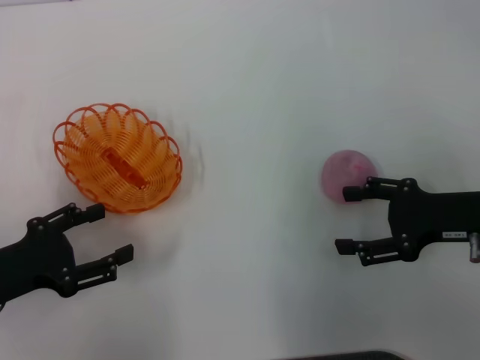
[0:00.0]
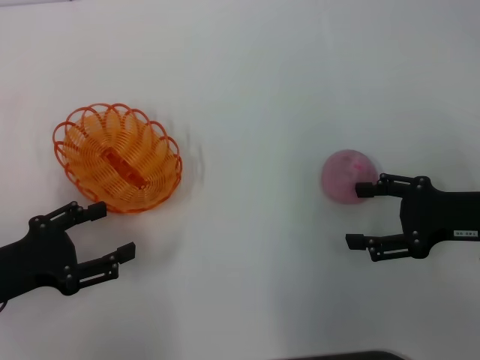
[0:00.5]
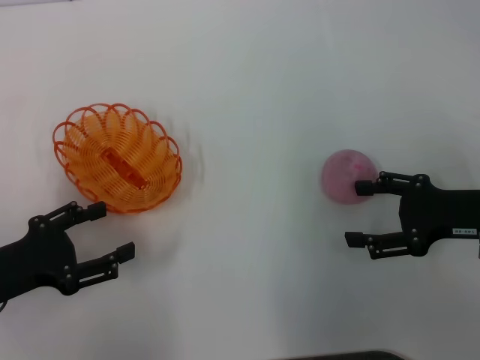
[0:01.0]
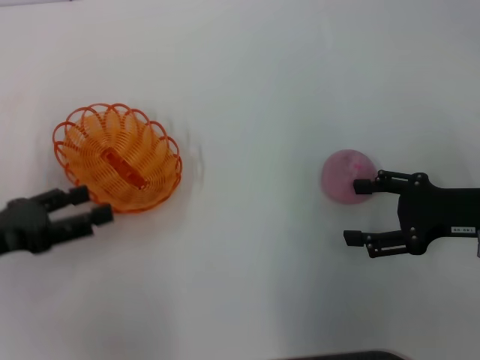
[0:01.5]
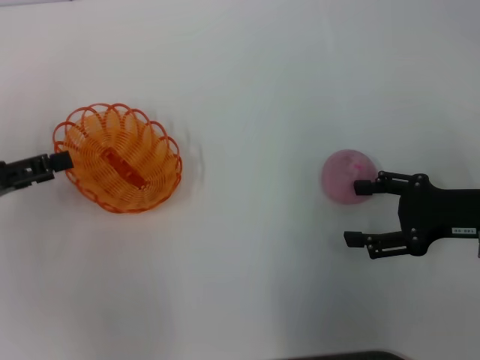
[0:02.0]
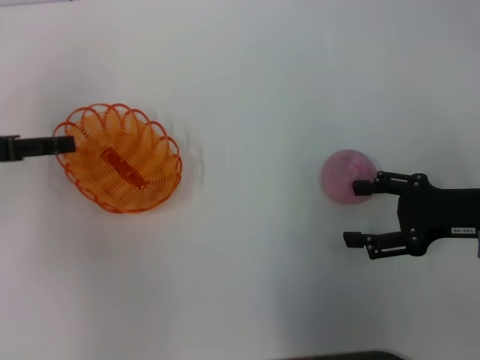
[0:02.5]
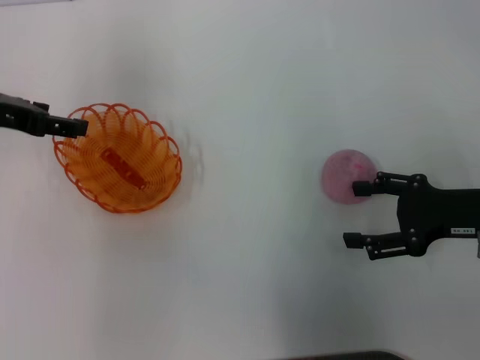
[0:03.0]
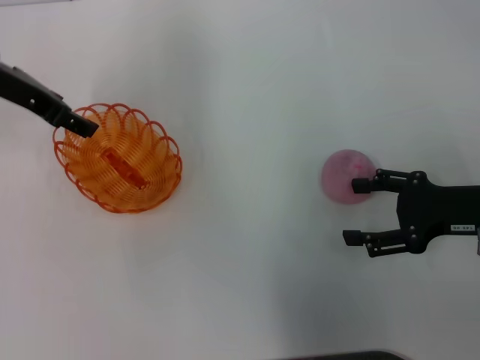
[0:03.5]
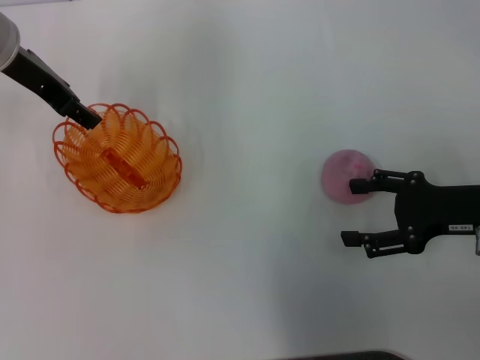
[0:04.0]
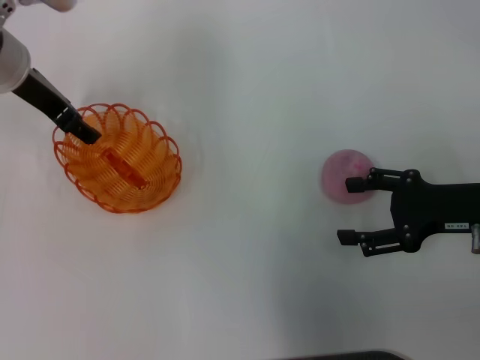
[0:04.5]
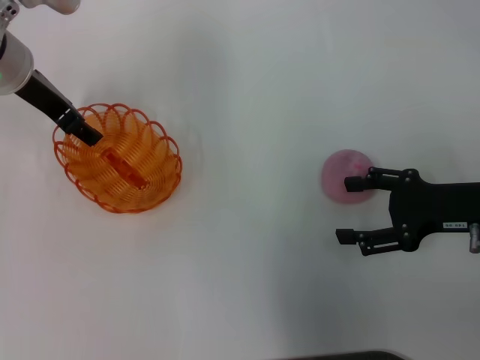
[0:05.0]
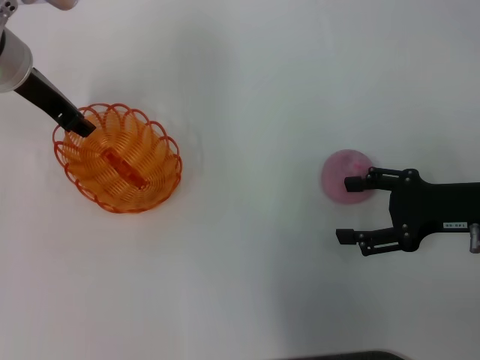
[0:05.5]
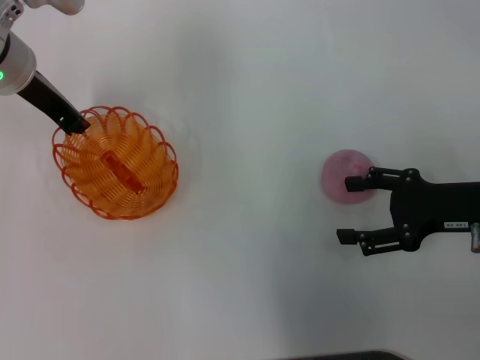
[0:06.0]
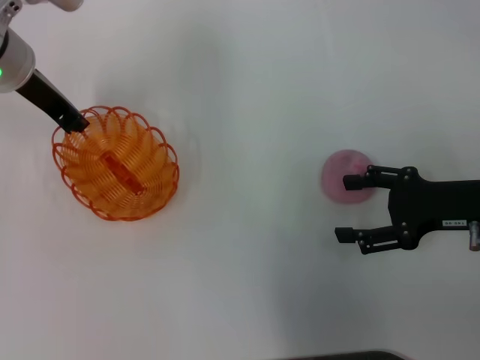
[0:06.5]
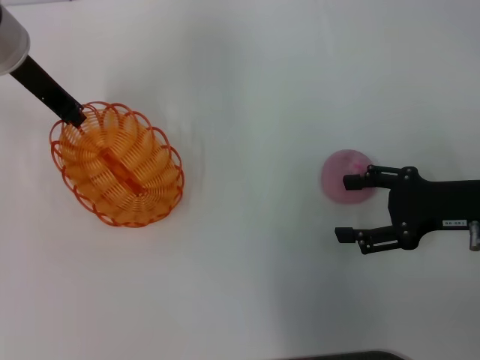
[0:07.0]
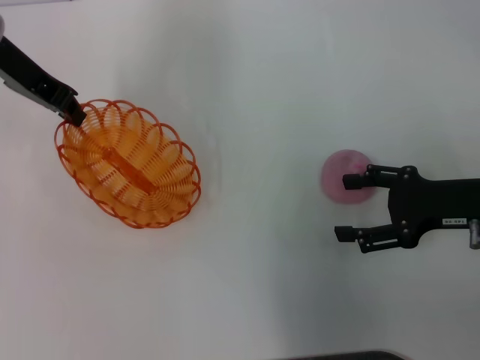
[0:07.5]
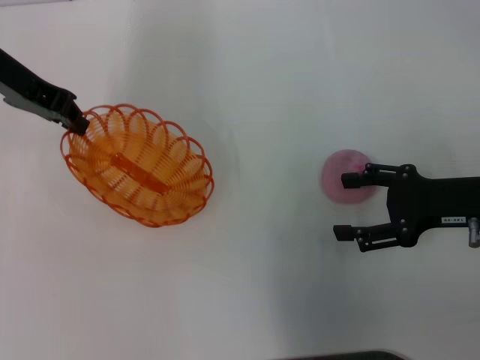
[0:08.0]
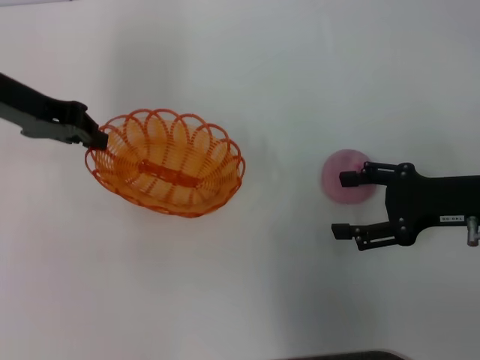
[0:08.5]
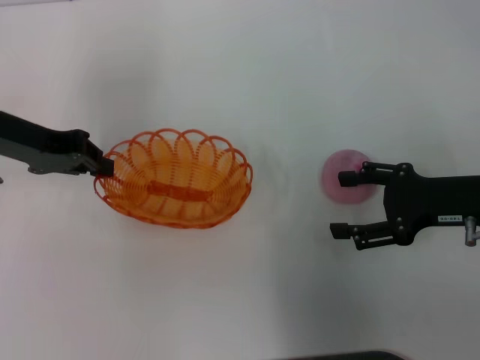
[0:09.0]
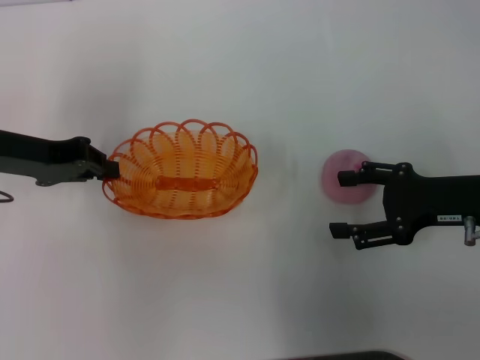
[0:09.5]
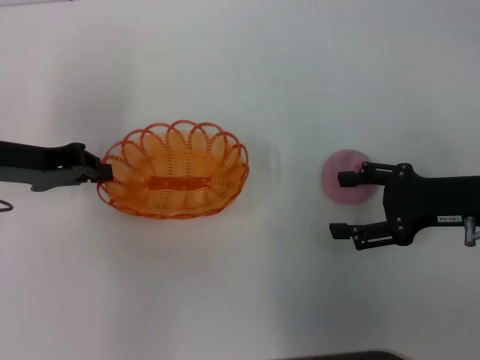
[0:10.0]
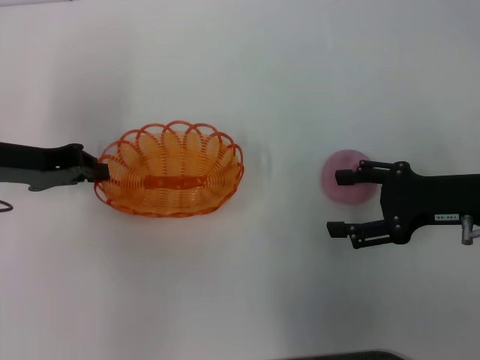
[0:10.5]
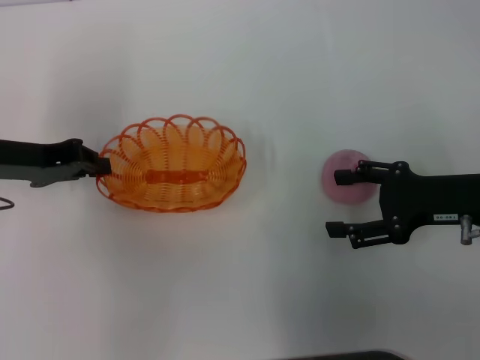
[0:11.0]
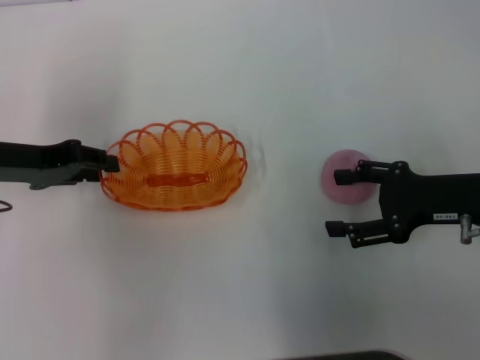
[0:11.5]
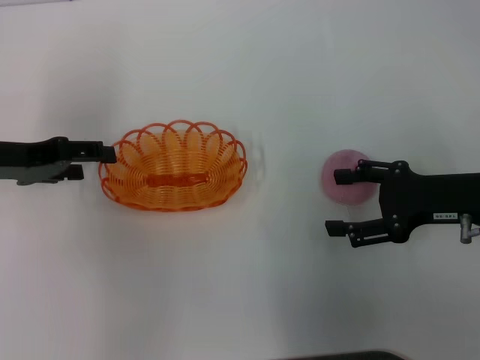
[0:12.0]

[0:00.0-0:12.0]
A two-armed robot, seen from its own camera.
Step, 0:00.0 to 0:07.0: Pick up the basket with the left gripper.
Step, 0:07.5 to 0:11.5: Place the basket in the center of view with the left gripper.
0:00.0 to 0:02.0: The left gripper goes some 10 cm forward and upward.
0:02.0 to 0:04.0: The left gripper moves forward, to the right and upward, roughly 20 cm.
0:04.0 to 0:06.0: The left gripper closes.
0:06.0 to 0:08.0: The left gripper ends up roughly 5 cm from where it was.
0:08.0 to 0:10.0: The left gripper travels backward and downward by about 10 cm.
0:10.0 to 0:12.0: The left gripper opens.

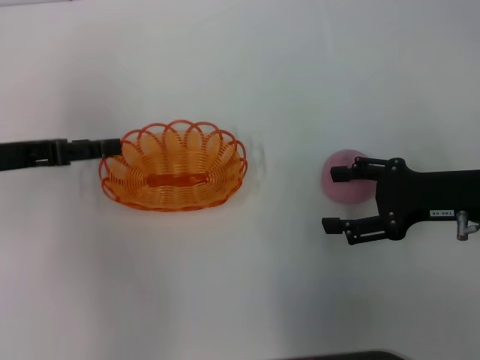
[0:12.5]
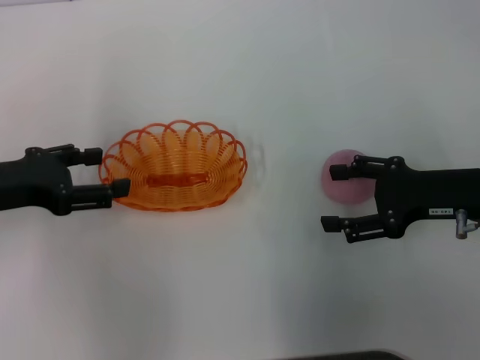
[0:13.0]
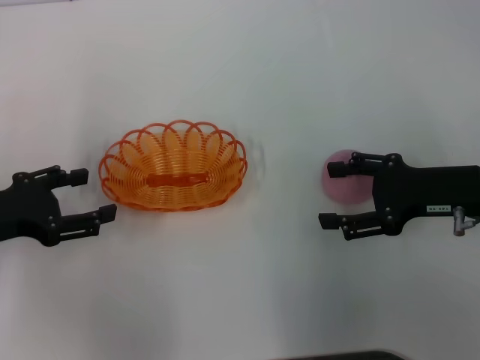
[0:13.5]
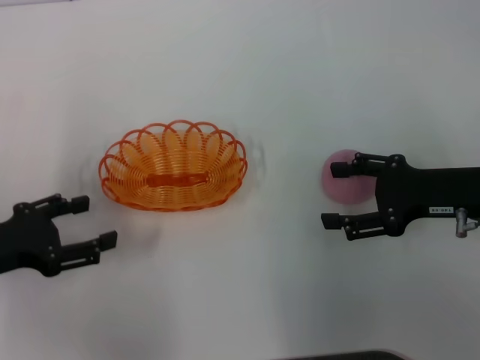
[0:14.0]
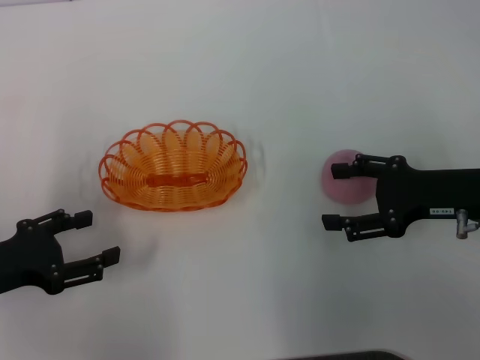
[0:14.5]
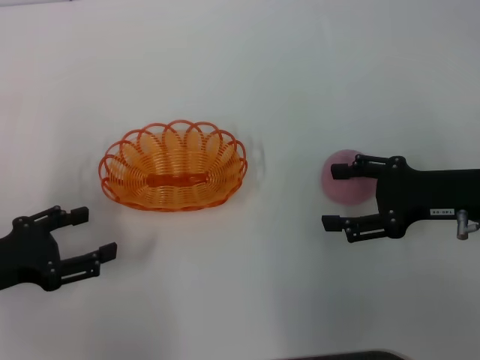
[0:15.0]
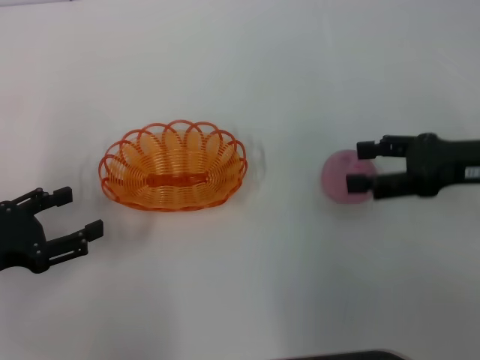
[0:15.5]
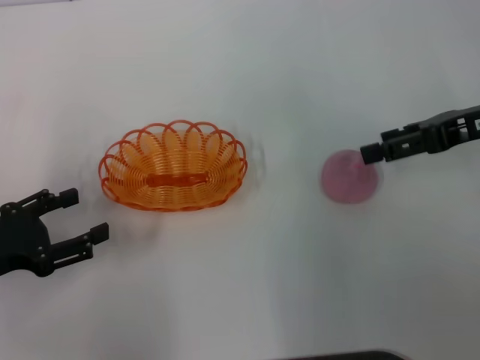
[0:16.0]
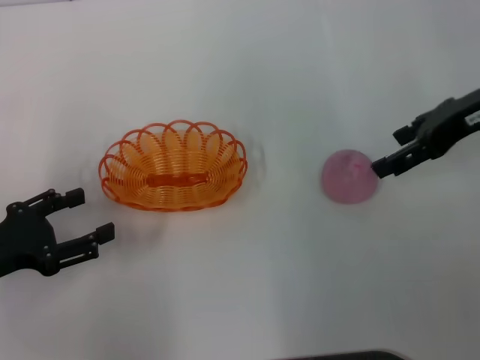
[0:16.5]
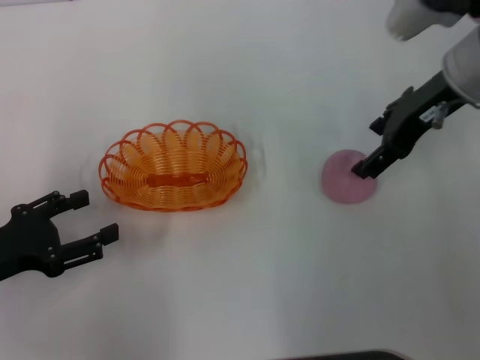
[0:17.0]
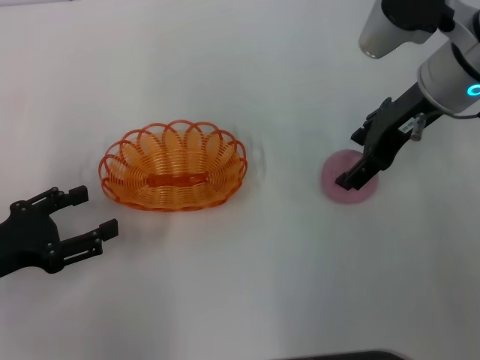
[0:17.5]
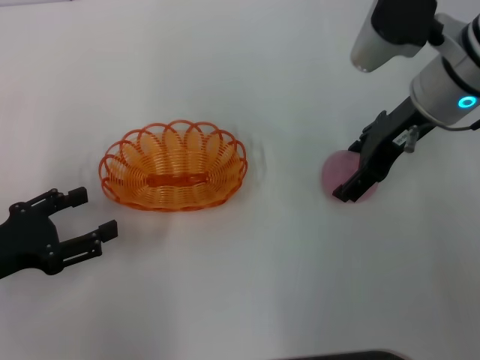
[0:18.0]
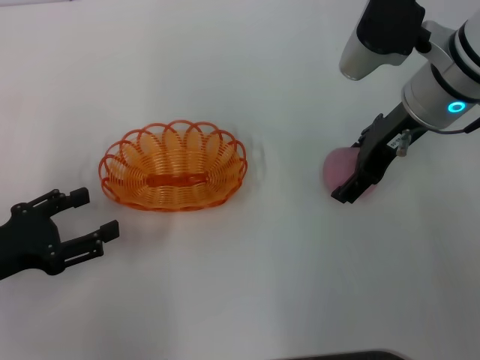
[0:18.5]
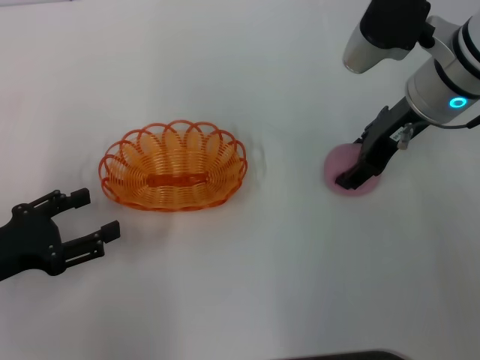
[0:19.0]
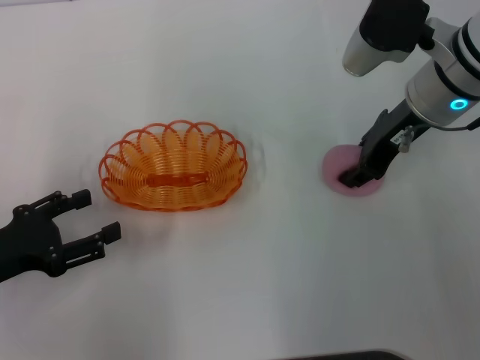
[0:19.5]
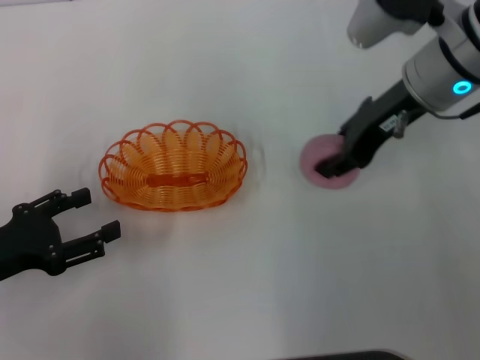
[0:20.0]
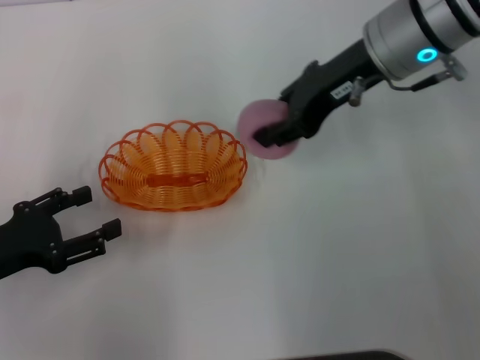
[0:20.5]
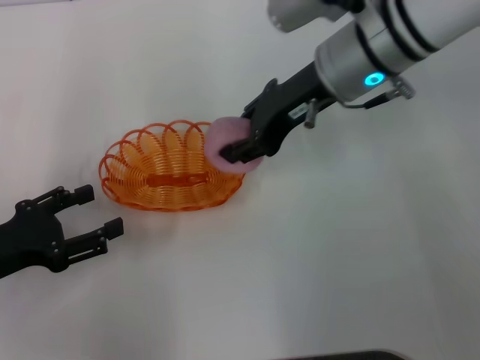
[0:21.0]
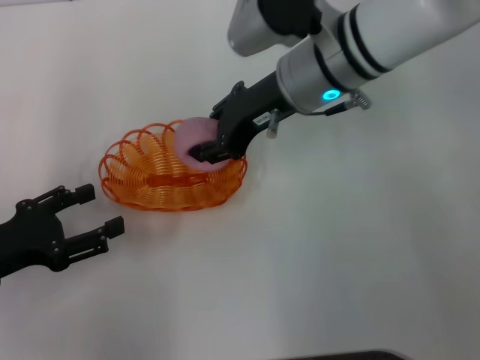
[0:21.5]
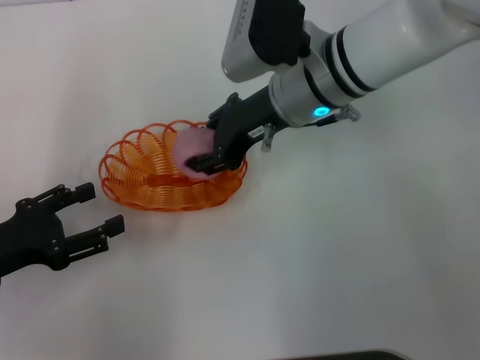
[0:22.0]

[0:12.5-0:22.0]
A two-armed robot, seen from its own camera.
Step, 0:12.5 to 0:20.0: Pick up the peach with the right gripper.
0:12.5 to 0:14.5: The left gripper shifts approximately 10 cm backward and downward.
0:14.5 to 0:16.5: The right gripper moves upward and forward, about 15 cm.
0:16.5 to 0:18.0: The right gripper shifts some 10 cm to the left.
0:18.0 to 0:20.0: The right gripper closes up.
0:20.0 to 0:22.0: The right gripper shifts some 10 cm to the left.

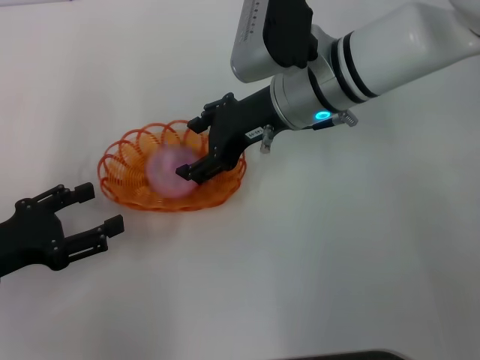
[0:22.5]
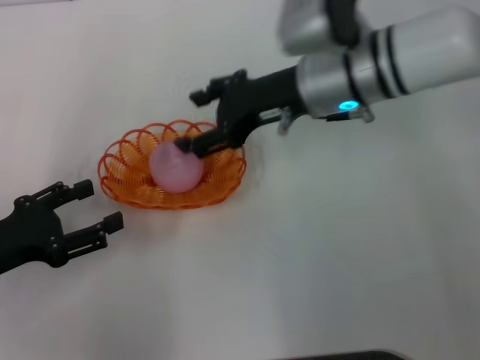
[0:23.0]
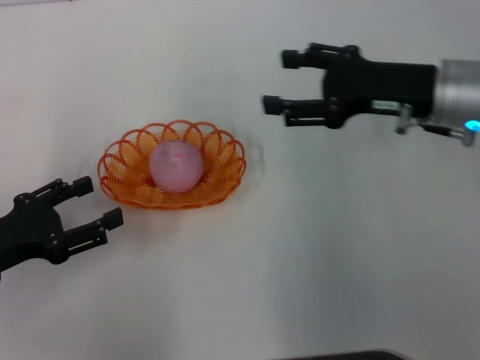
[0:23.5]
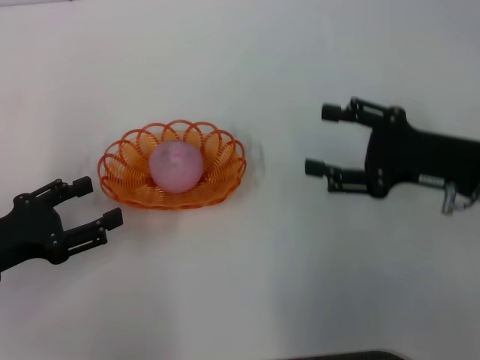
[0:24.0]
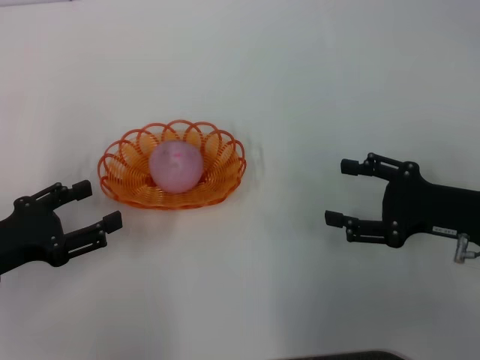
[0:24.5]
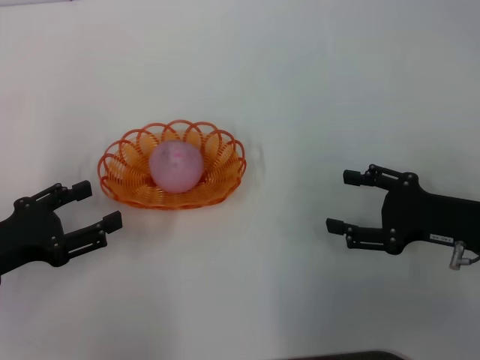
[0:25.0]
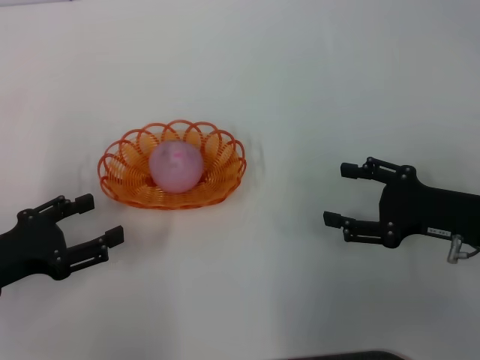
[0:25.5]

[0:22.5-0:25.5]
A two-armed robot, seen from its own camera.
0:22.5 to 0:24.0: The right gripper travels to the right and backward by approximately 20 cm.
0:24.0 to 0:25.5: The right gripper moves about 5 cm.

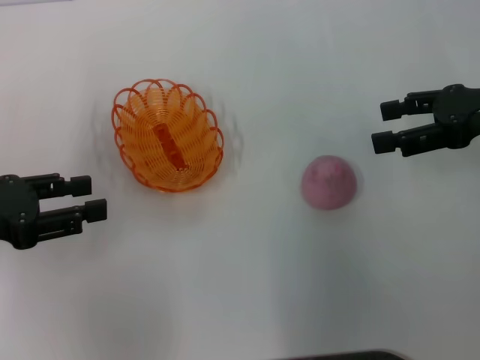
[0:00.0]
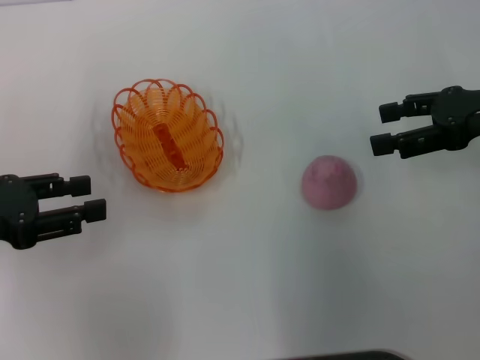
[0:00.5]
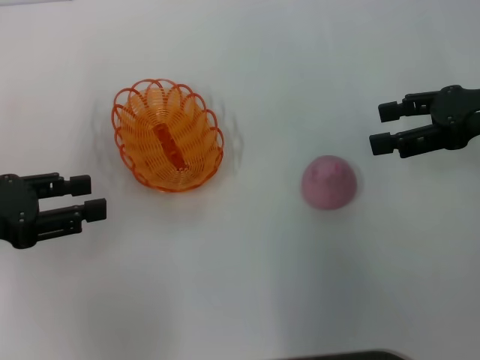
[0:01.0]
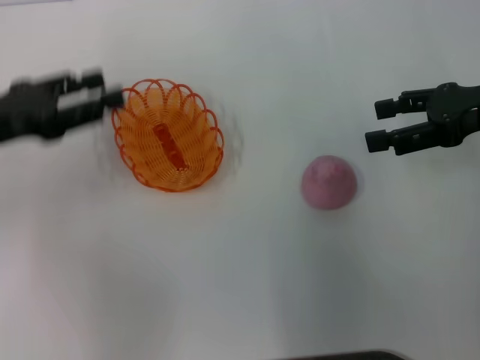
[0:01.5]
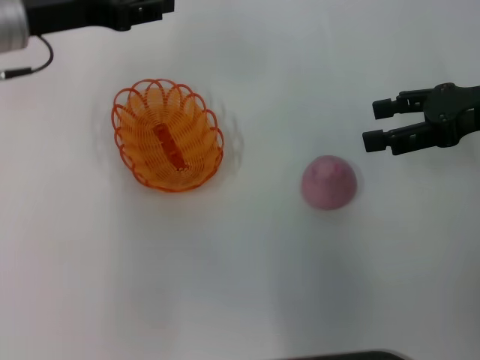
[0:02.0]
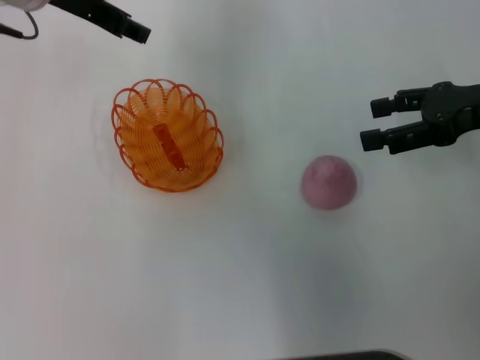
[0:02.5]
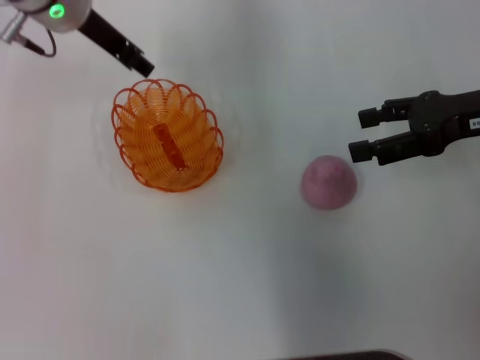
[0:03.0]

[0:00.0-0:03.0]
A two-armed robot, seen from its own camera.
0:00.0 to 0:01.5: The left gripper goes approximately 5 cm forward.
0:01.5 to 0:03.0: The left gripper moves forward and to the right, approximately 20 cm.
